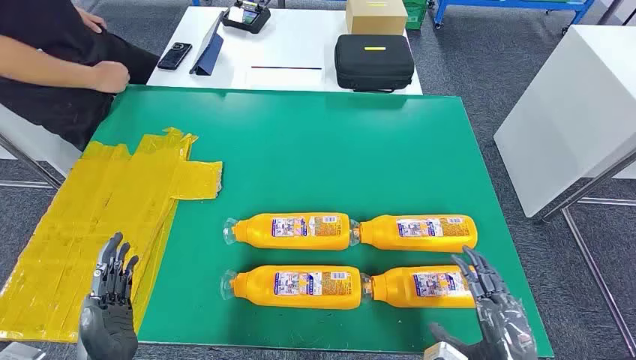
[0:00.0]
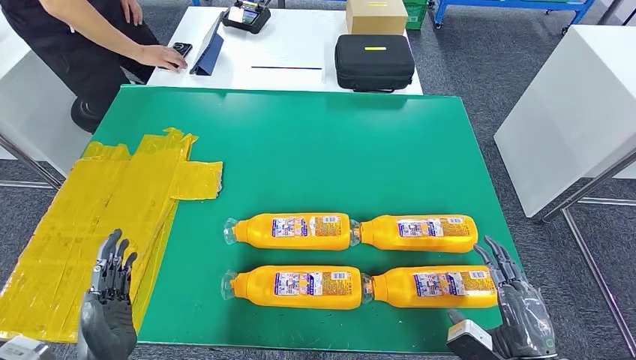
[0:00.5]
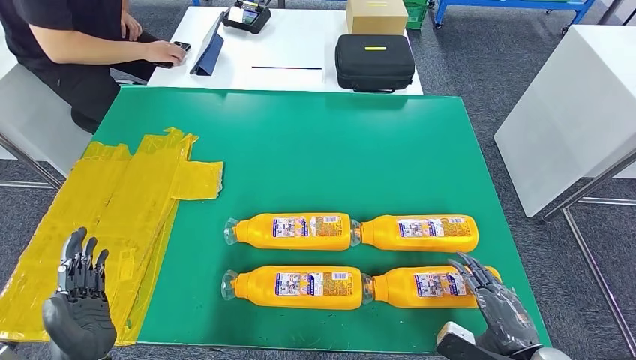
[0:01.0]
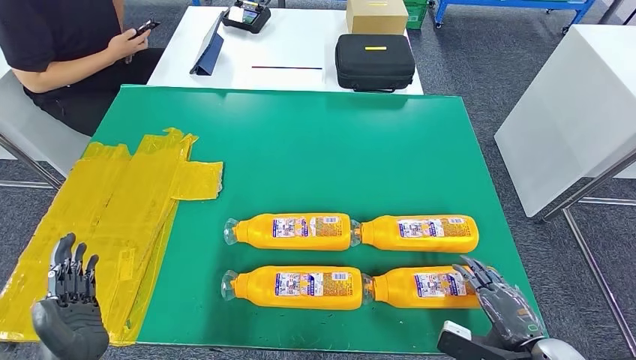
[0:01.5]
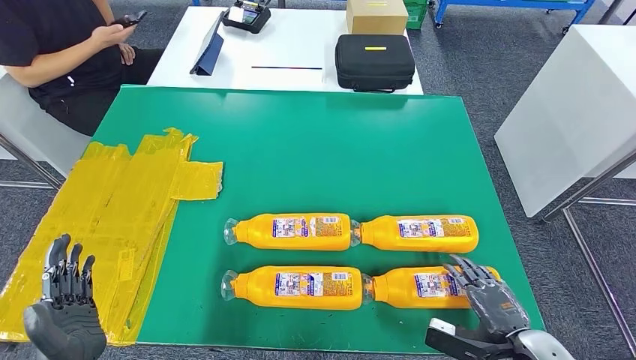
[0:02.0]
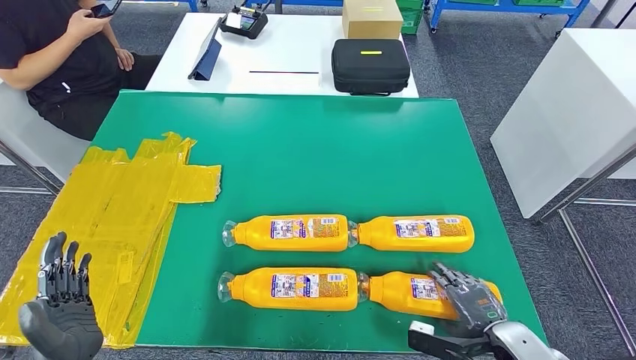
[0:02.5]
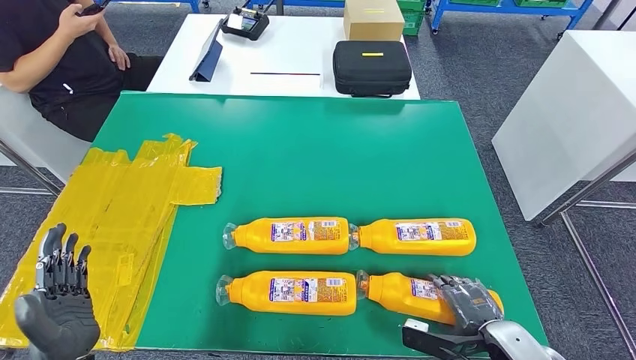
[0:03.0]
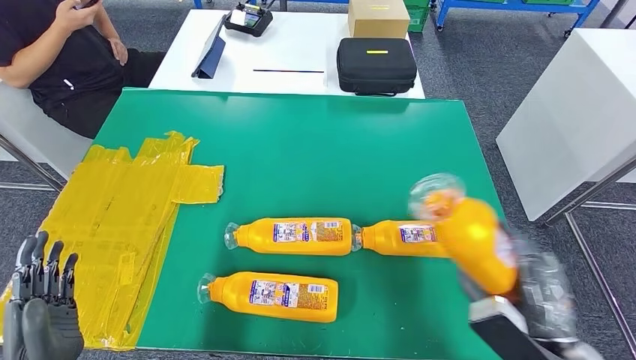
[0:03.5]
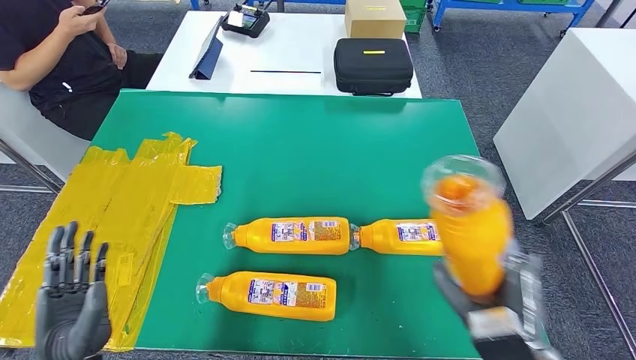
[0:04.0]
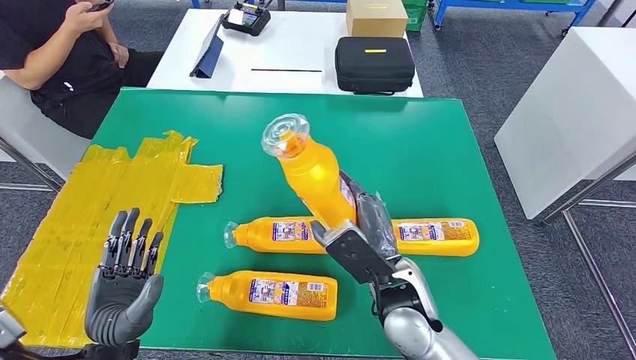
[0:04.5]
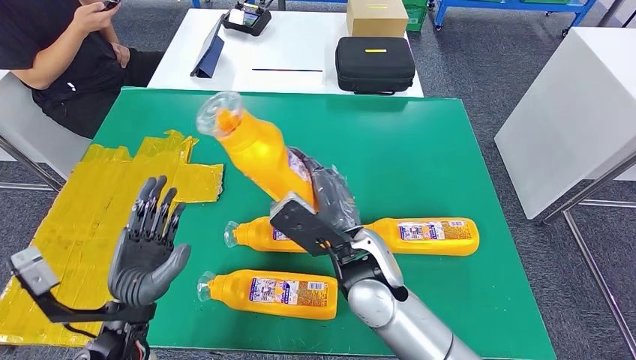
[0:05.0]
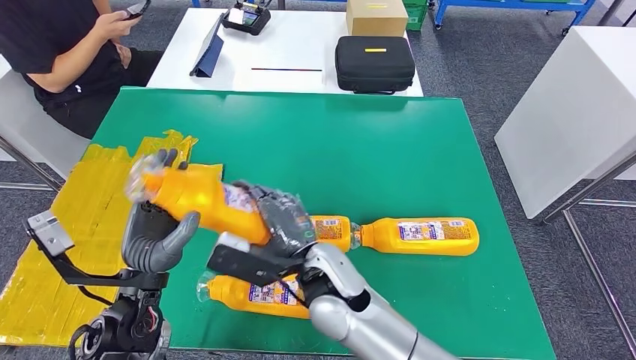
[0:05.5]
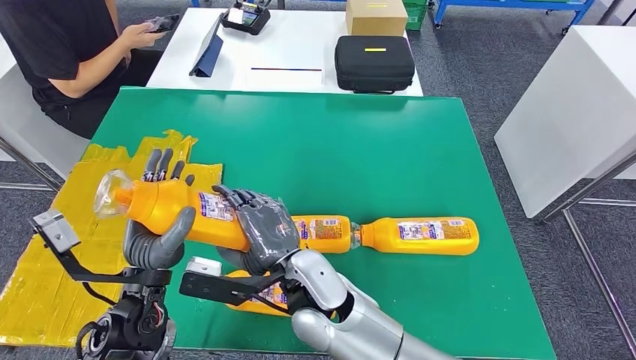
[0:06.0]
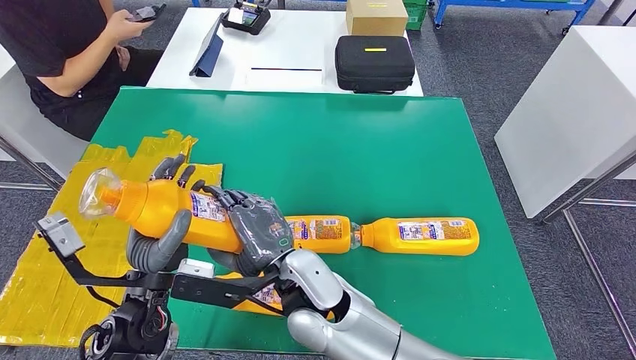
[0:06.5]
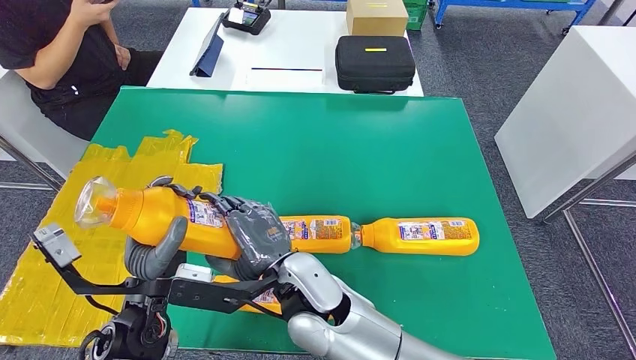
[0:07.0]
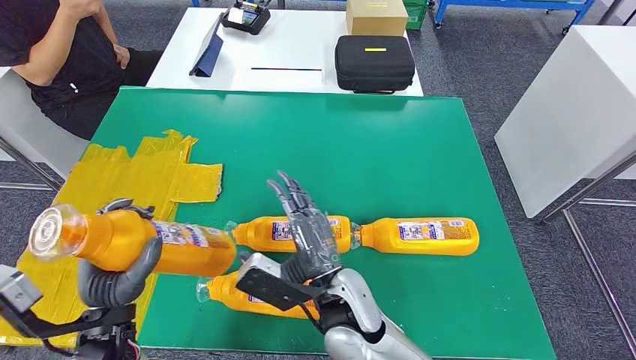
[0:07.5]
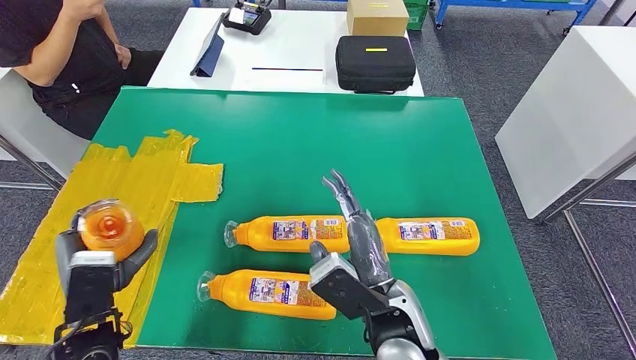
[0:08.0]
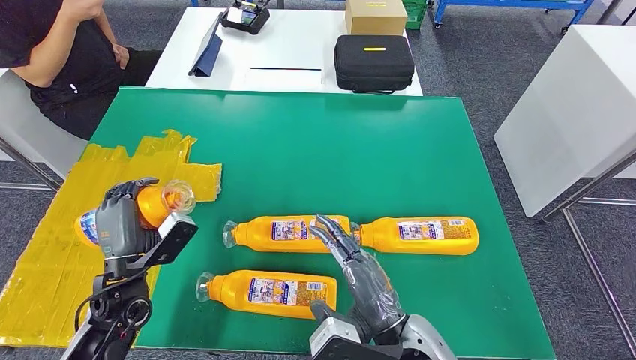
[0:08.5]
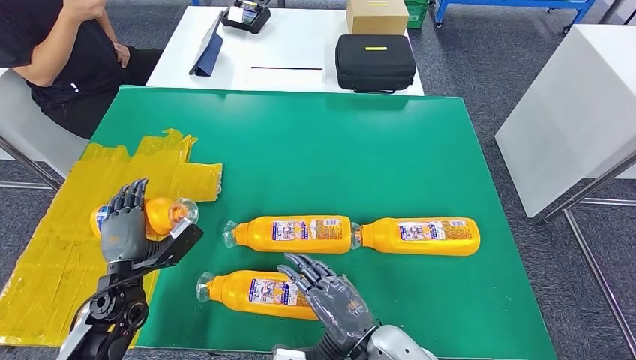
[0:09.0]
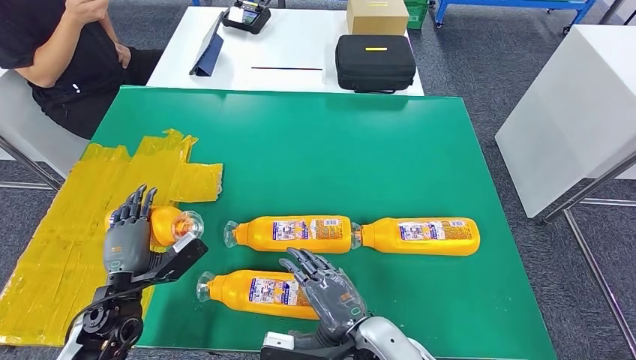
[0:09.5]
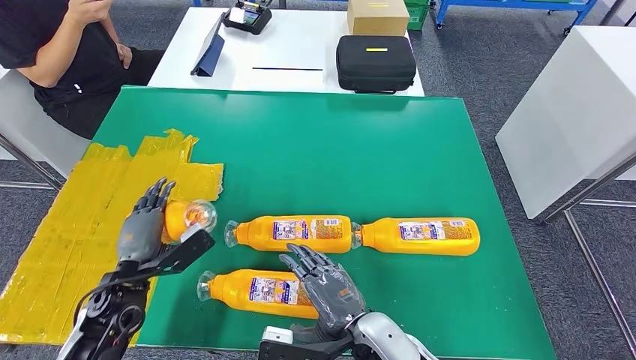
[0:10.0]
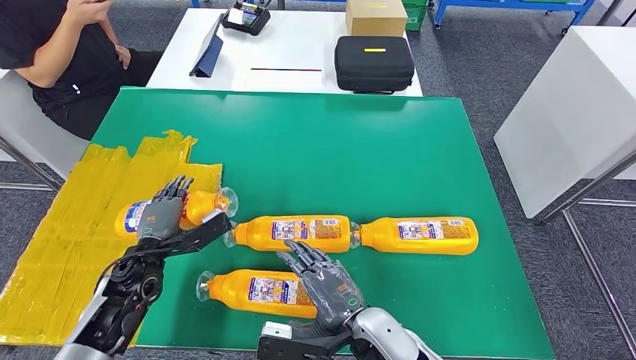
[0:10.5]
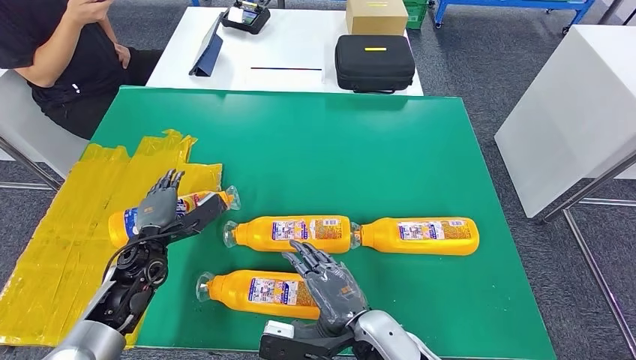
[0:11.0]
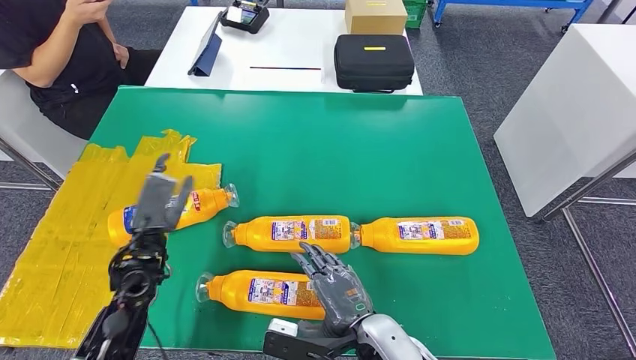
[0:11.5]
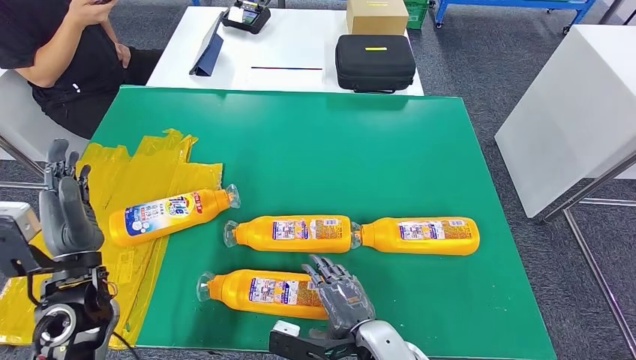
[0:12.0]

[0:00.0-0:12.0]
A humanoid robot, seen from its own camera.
Step, 0:00.0 to 0:03.5: Take the bottle from the table.
Step, 0:04.0 to 0:11.0: Flip the bottle to face forward.
0:08.0 to 0:10.0: The left hand shifts roughly 5 cm forward, while the right hand shifts by about 5 cm.
0:10.0 to 0:12.0: The left hand is displaced upward by roughly 10 cm.

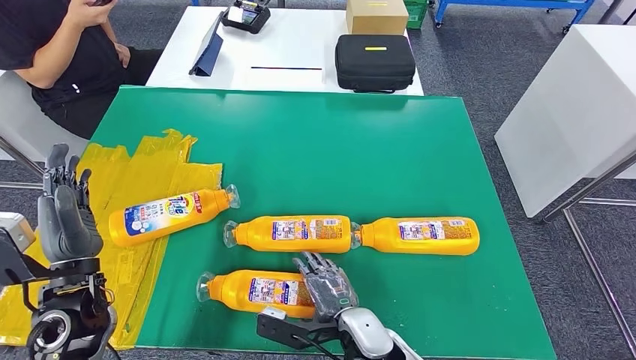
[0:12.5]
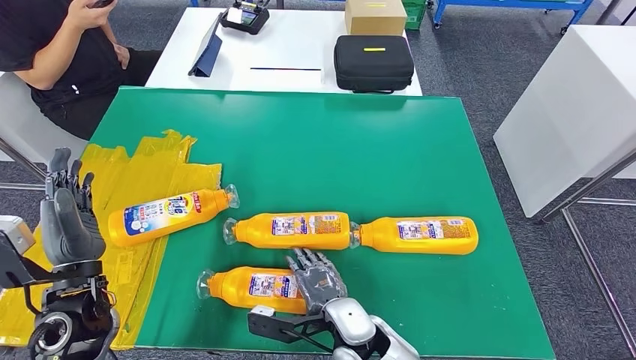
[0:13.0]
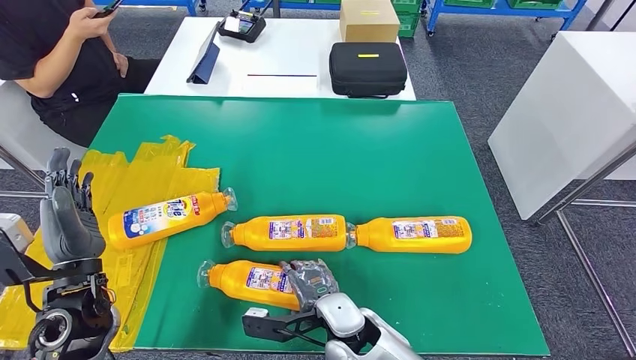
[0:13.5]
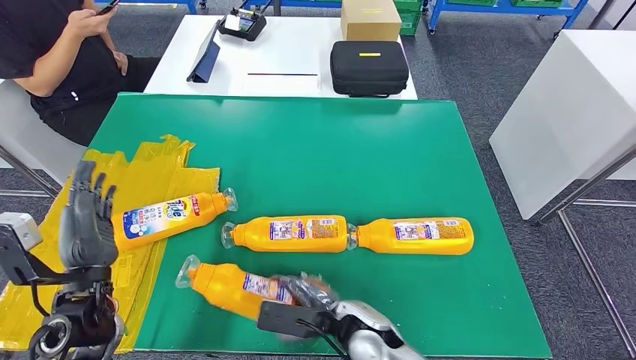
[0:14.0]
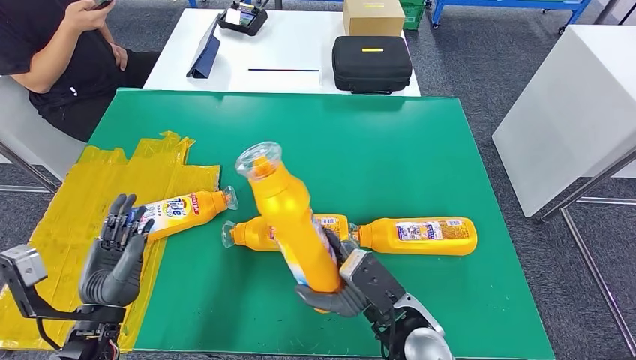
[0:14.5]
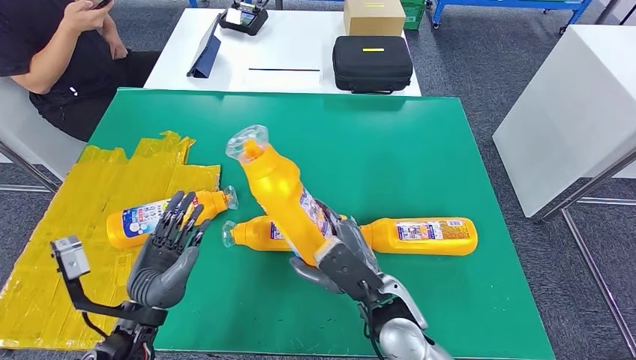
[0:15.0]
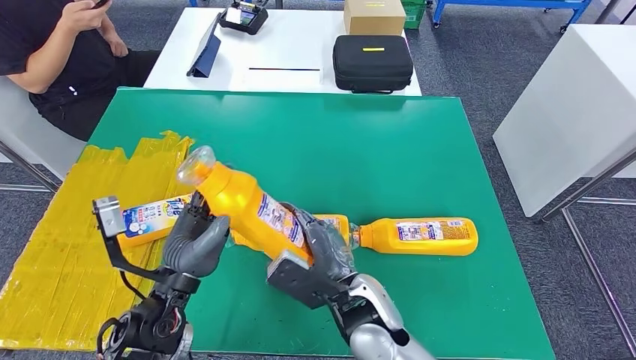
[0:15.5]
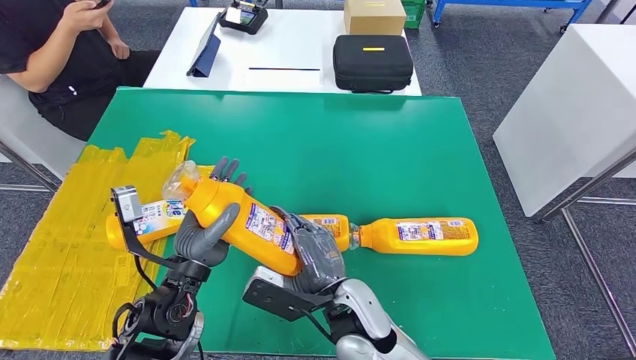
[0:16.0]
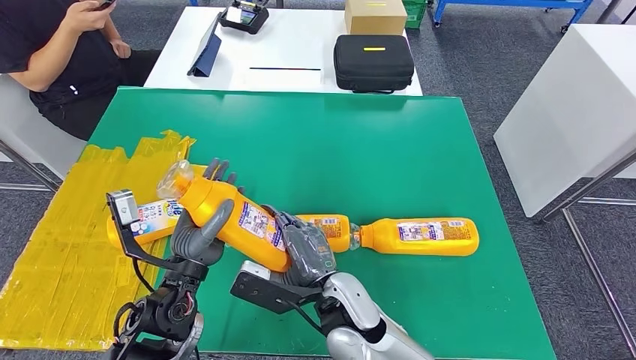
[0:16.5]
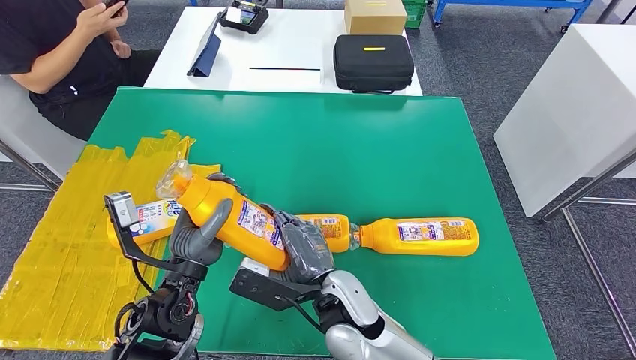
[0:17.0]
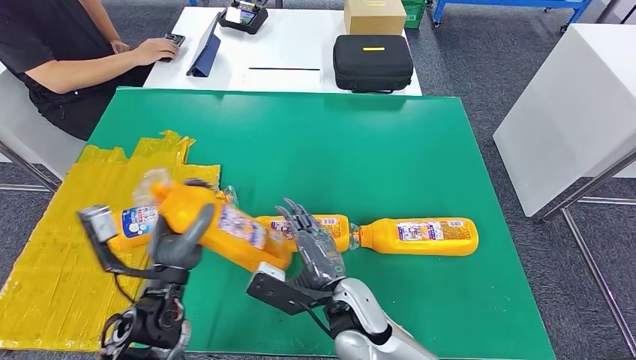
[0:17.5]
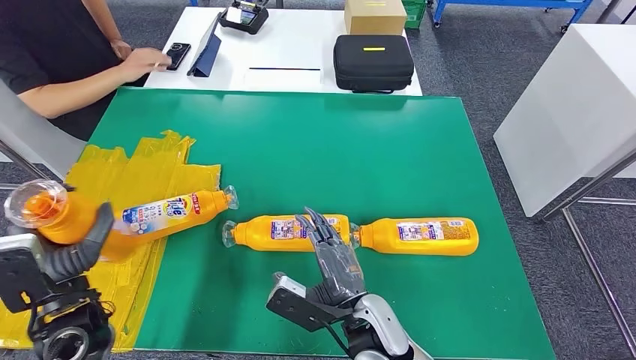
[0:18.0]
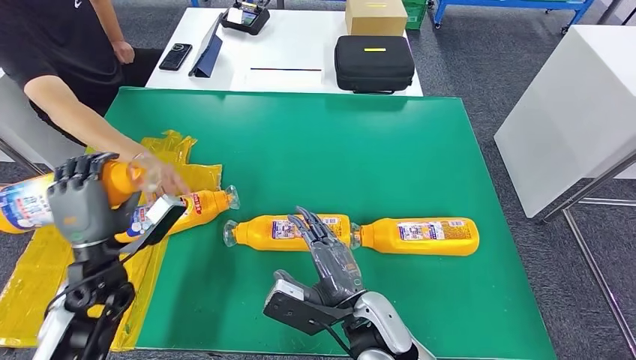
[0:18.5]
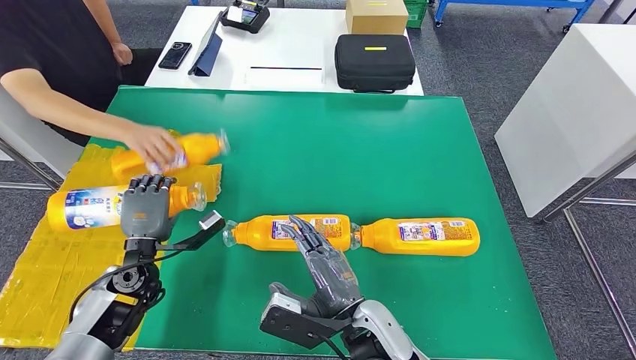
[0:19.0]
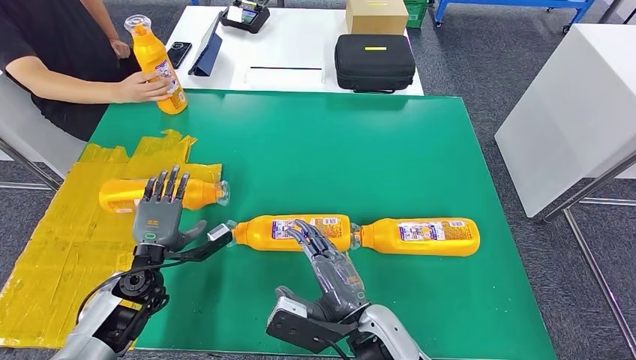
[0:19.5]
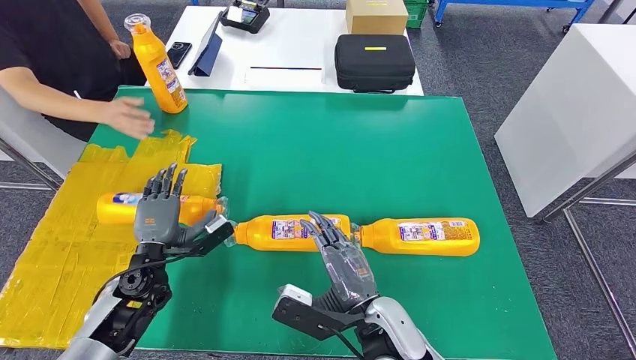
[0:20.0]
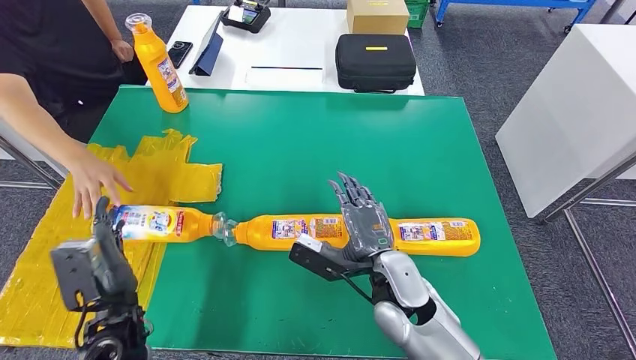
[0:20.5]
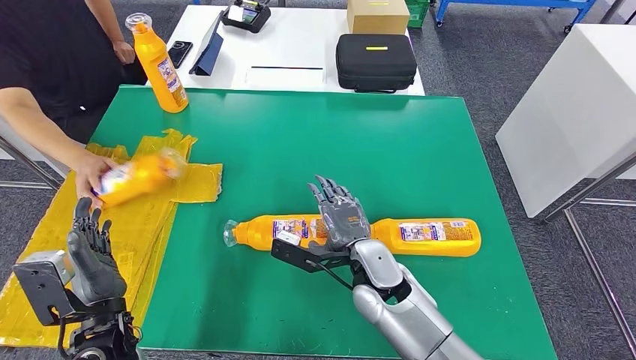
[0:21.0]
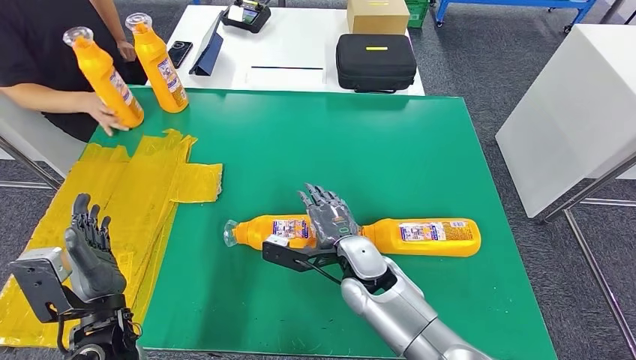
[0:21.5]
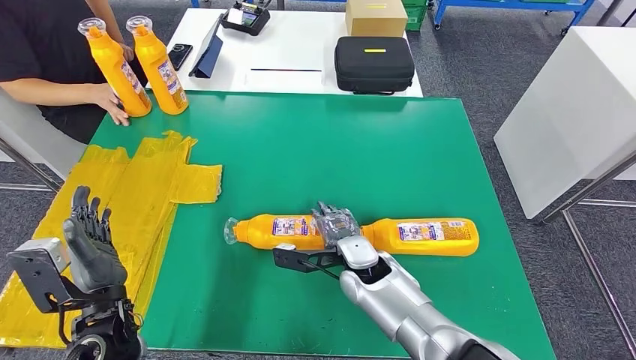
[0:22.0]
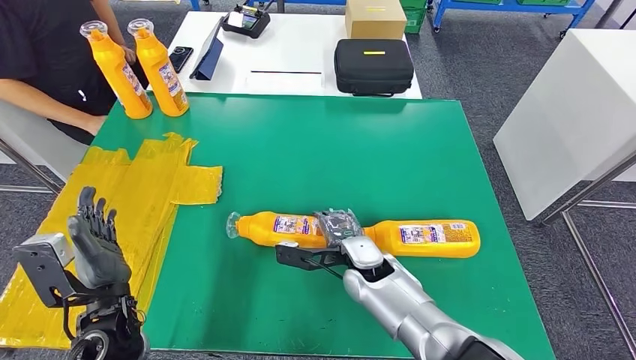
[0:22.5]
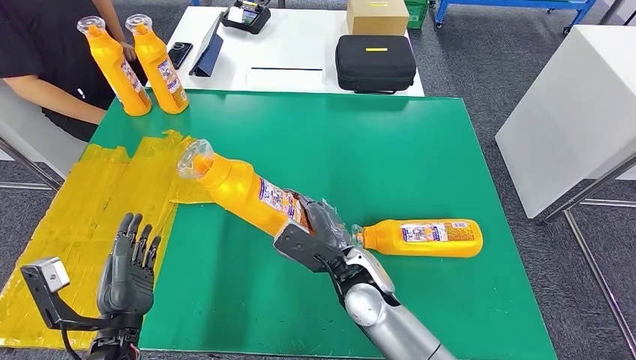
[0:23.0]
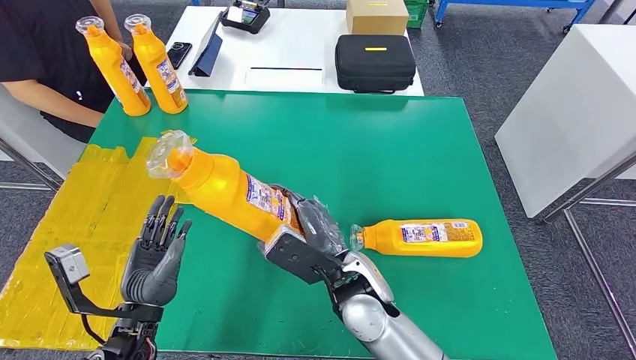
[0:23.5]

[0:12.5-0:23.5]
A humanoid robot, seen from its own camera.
Step, 0:12.5 to 0:15.5: Pick up the bottle from the table.
Step, 0:16.0 to 0:19.5: Flip the bottle to face forward.
Step, 0:20.0 to 0:23.0: Pick up the bottle from the table.
